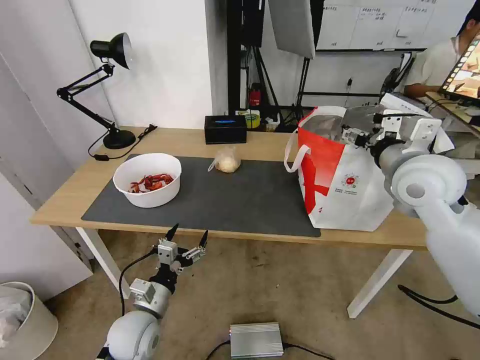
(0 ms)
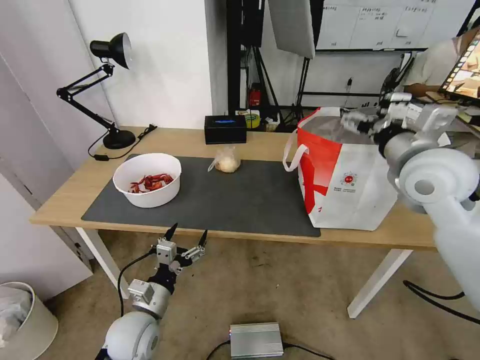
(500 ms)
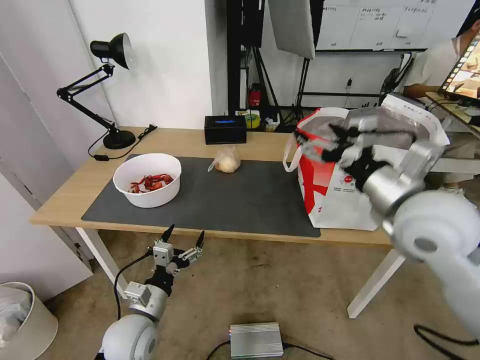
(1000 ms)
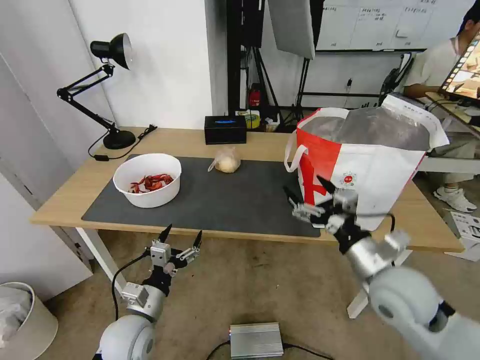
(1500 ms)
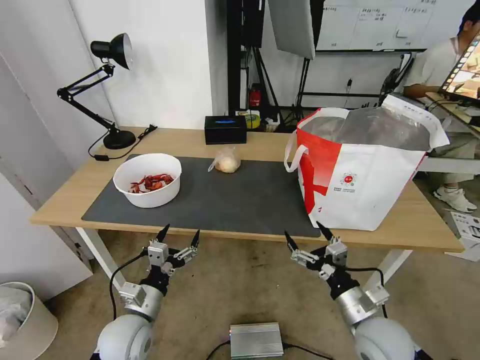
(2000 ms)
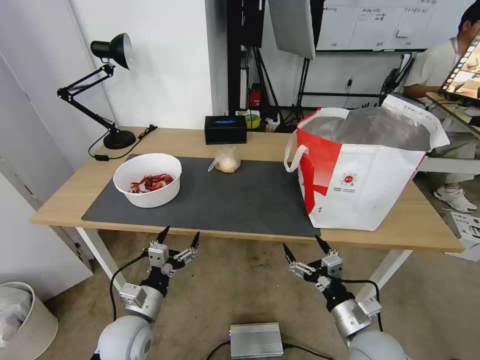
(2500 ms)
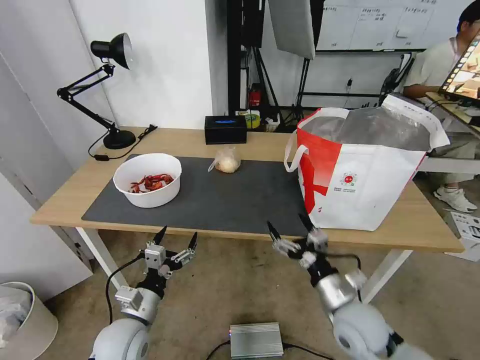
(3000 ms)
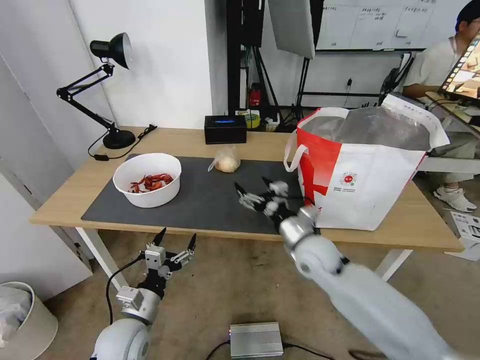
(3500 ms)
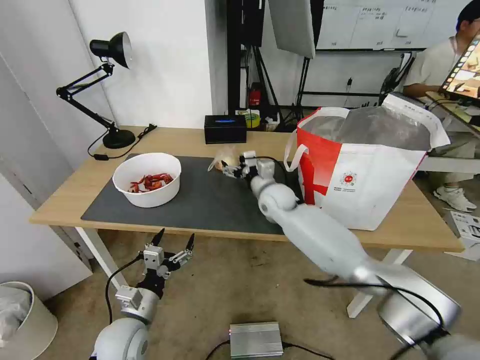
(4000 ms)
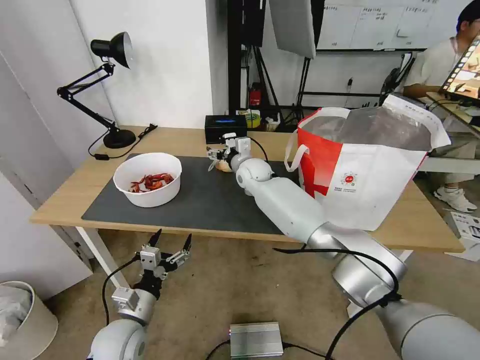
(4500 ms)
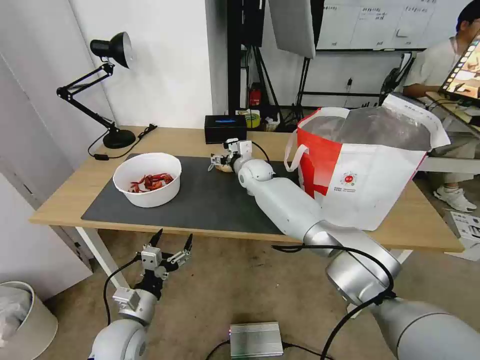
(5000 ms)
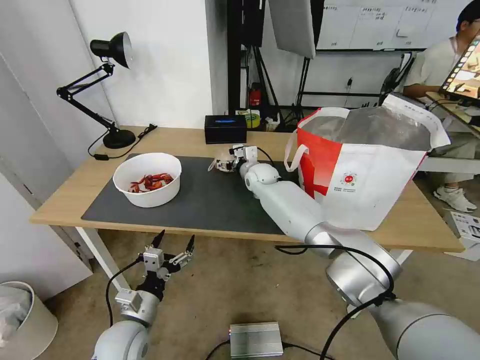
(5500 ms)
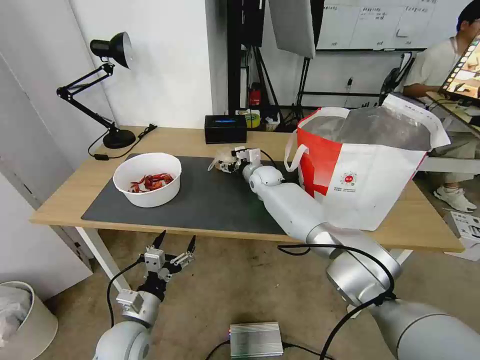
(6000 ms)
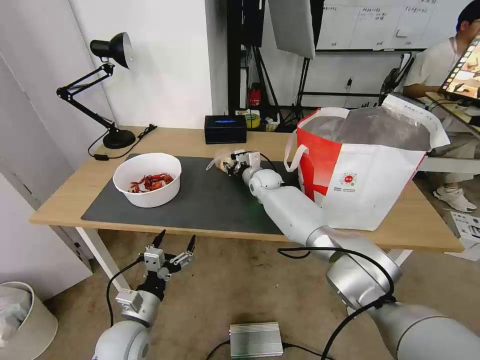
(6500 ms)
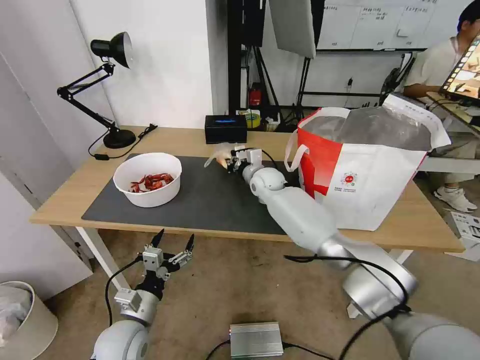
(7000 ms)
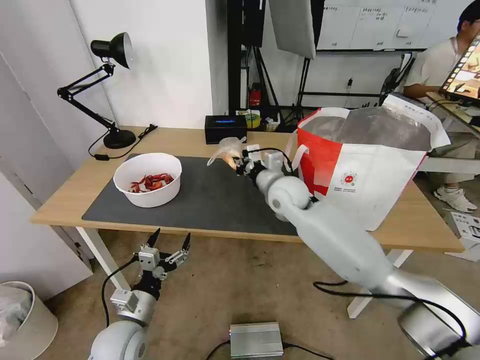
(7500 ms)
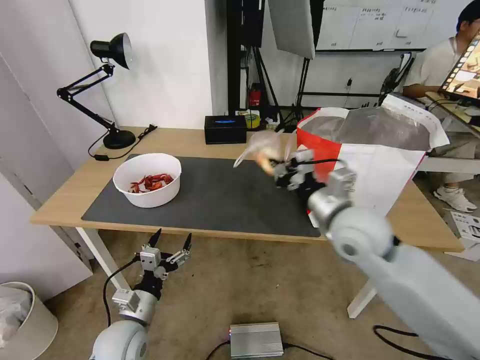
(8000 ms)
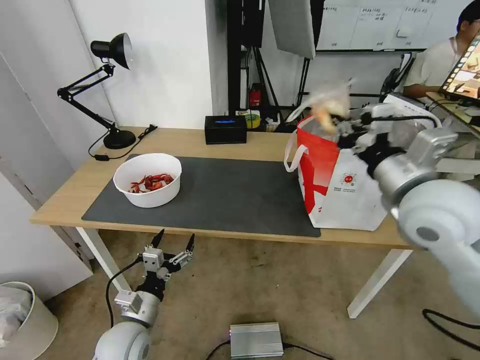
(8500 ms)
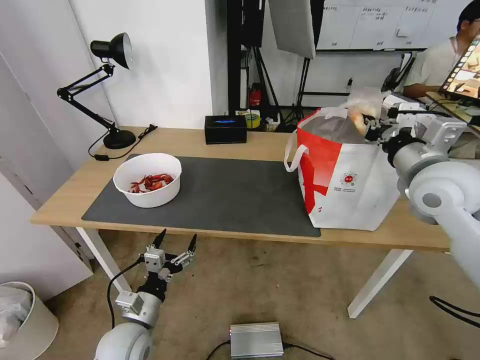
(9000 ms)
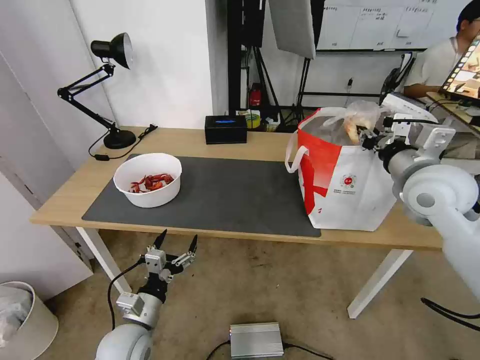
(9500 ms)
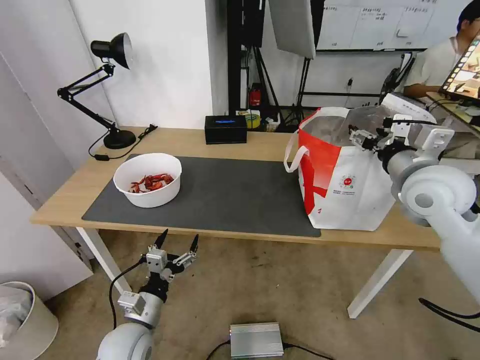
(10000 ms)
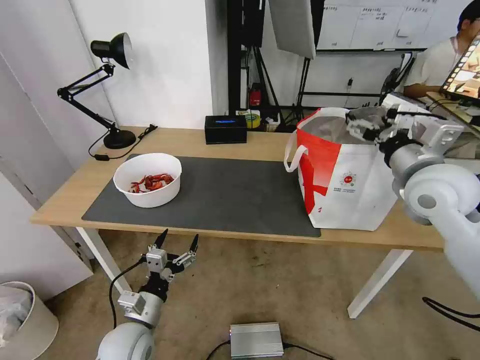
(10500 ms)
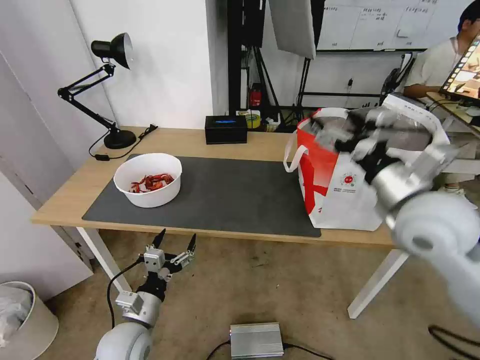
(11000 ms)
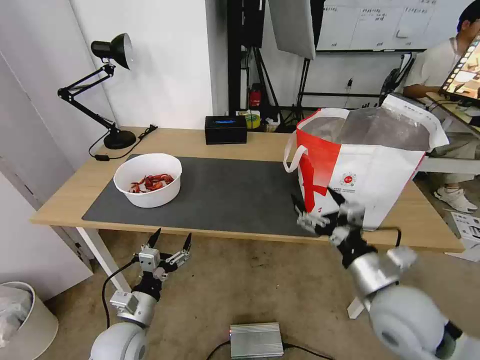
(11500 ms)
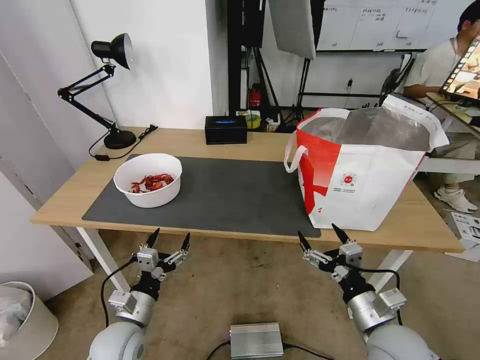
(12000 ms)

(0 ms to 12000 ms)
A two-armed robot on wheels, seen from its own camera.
Task of the whole recording: Pick up the trash from the table and place it into the takeout bag.
0 ms - 2000 ms: The right gripper moves downward and backward, approximately 30 cm.
2000 ms - 4000 ms: The right gripper travels forward and to the left by roughly 35 cm.
4000 ms - 6000 ms: The right gripper heads forward, covering roughly 10 cm.
6000 ms - 8000 ms: The right gripper travels backward, upward and to the right by roughly 35 cm, and closes up.
8000 ms - 10000 ms: The right gripper goes about 15 cm to the right and upward, and opens up.
10000 ms - 12000 ms: The right gripper goes some 30 cm downward and backward.

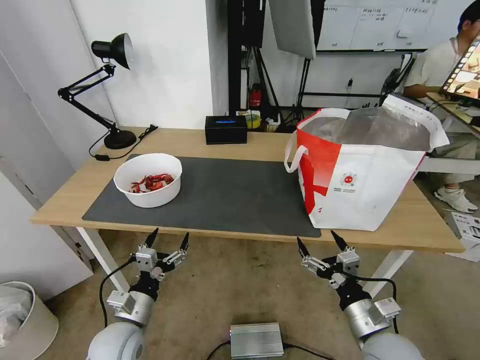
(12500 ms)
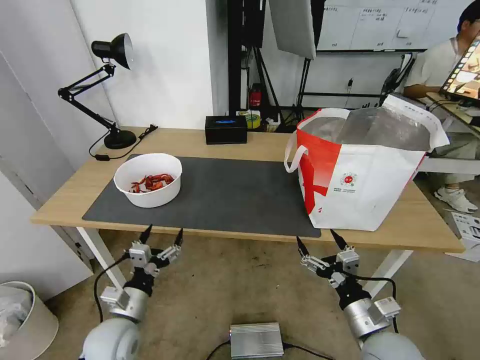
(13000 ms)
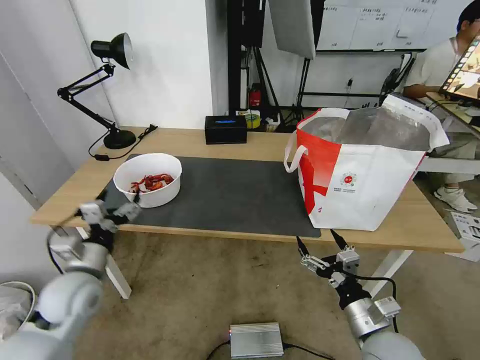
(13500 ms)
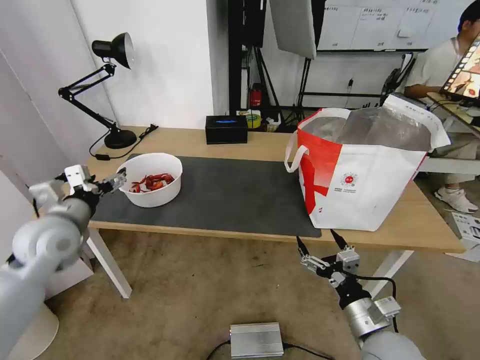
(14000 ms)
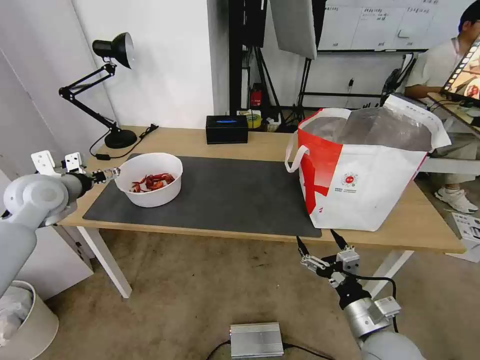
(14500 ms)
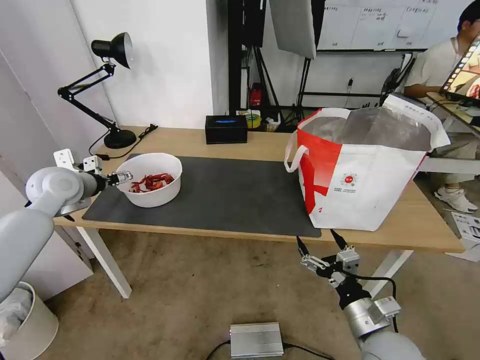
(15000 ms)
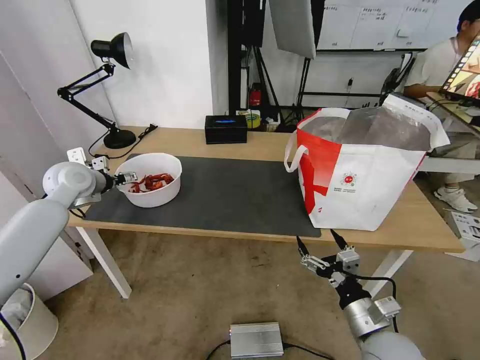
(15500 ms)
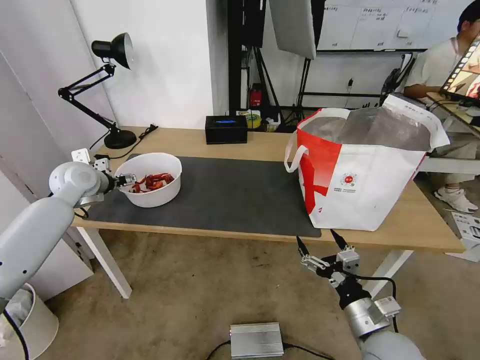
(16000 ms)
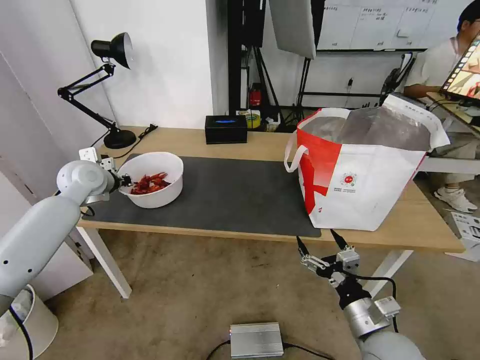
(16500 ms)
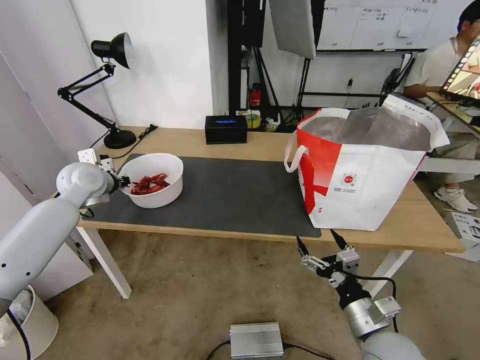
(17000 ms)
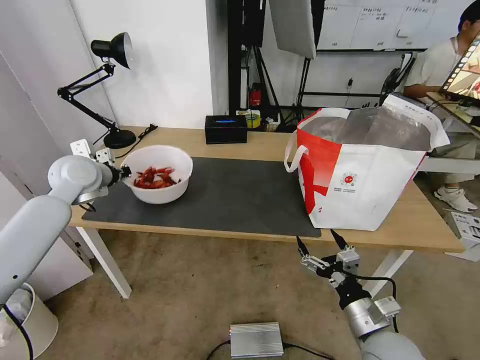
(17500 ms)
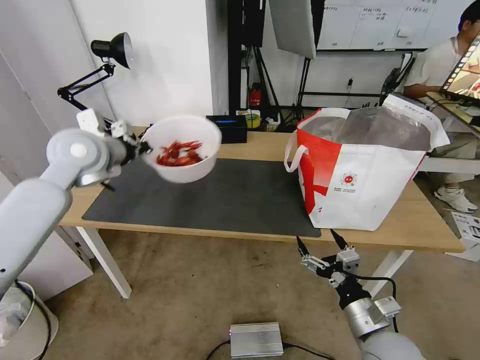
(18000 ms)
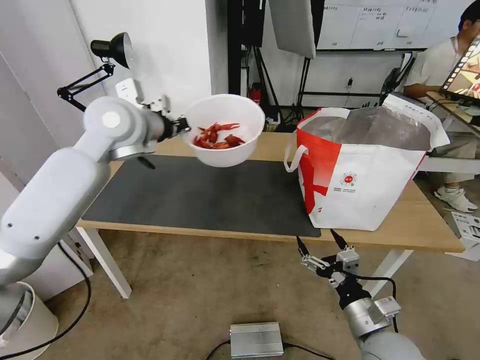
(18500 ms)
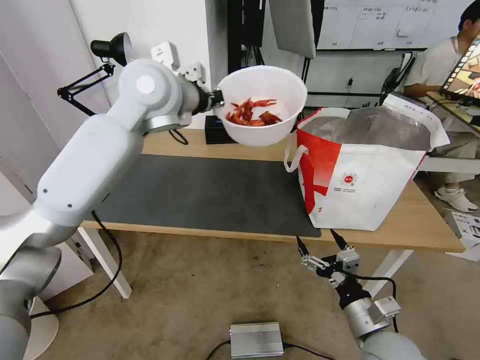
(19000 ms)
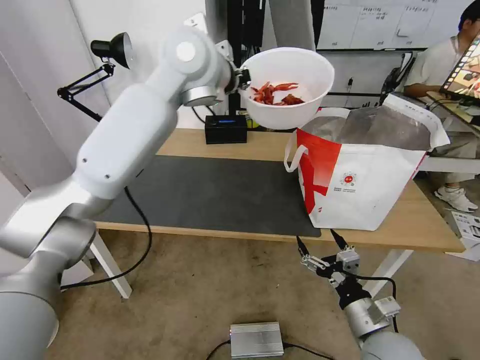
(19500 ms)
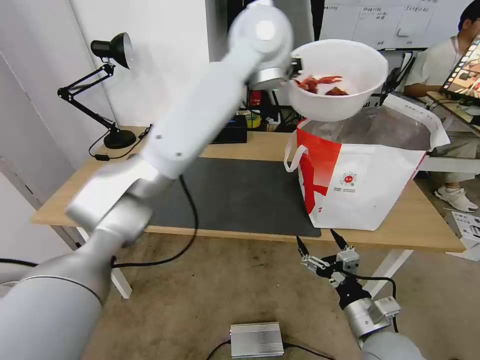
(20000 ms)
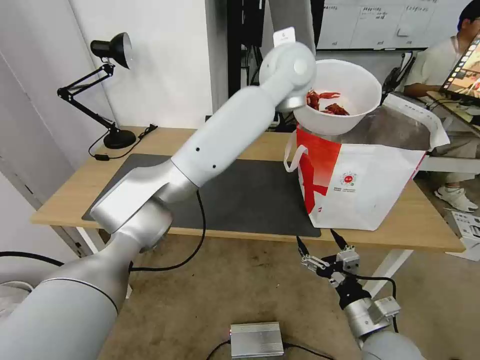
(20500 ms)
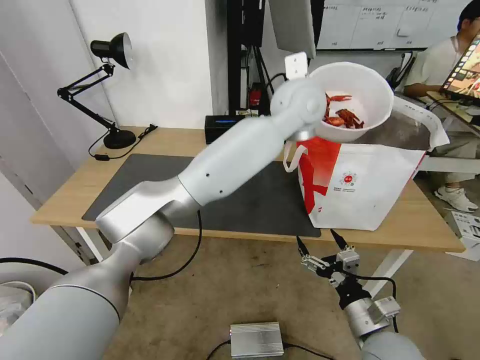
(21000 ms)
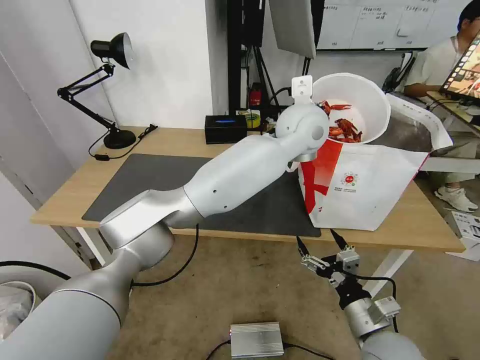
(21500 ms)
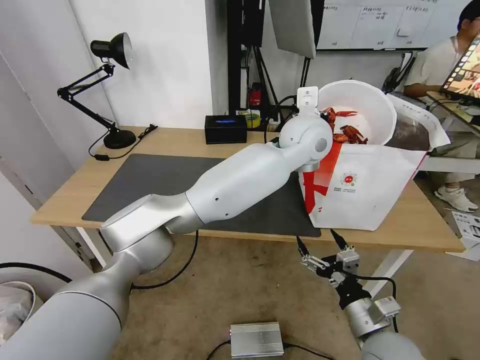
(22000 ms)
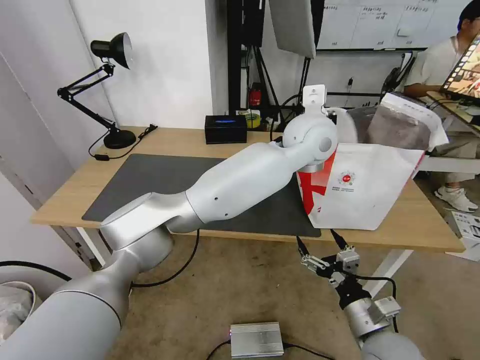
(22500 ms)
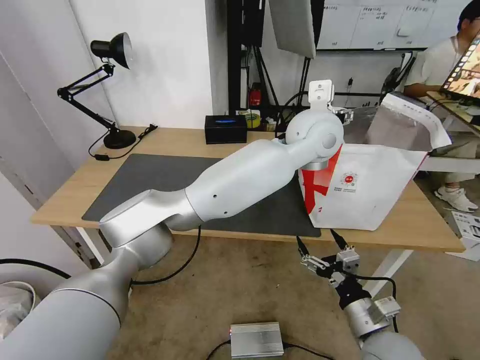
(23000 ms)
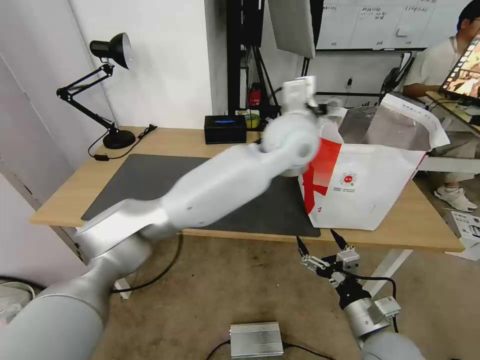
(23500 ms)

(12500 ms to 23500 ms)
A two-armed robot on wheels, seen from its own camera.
Task of the whole recording: Pick up the trash from the table and place it into the takeout bag.
12500 ms - 14500 ms: The left gripper goes some 35 cm upward, forward and to the left.
14500 ms - 16000 ms: The left gripper heads forward, covering roughly 5 cm.
16000 ms - 18000 ms: The left gripper is displaced upward and to the right by approximately 15 cm, and closes up.
18000 ms - 20000 ms: The left gripper travels to the right and upward by about 35 cm.
20000 ms - 21500 ms: The left gripper goes about 15 cm downward and to the right.
21500 ms - 23500 ms: The left gripper shifts by approximately 5 cm, and opens its fingers.

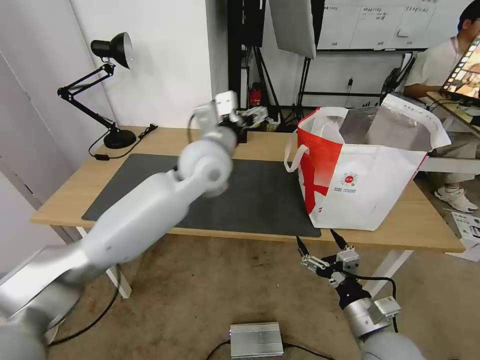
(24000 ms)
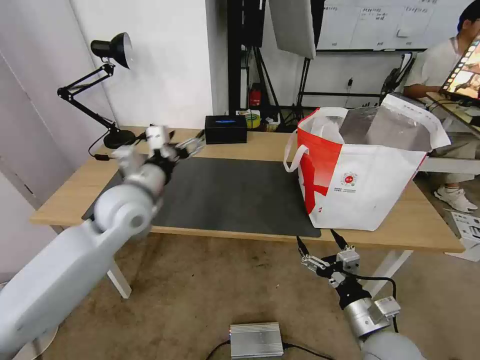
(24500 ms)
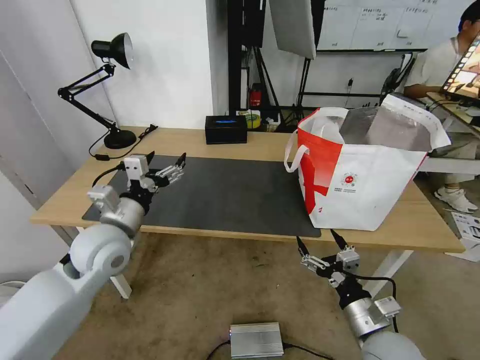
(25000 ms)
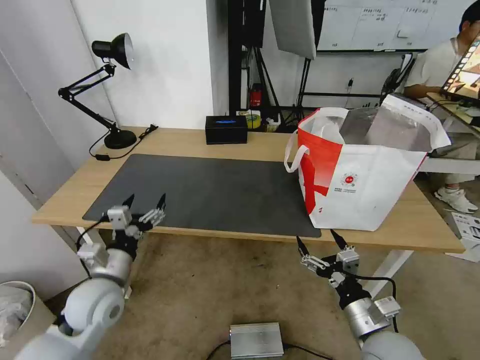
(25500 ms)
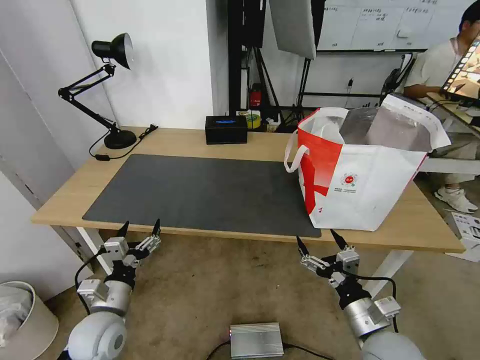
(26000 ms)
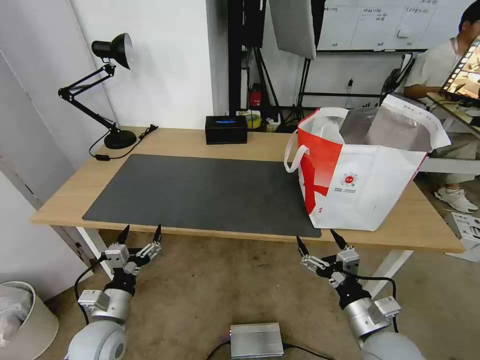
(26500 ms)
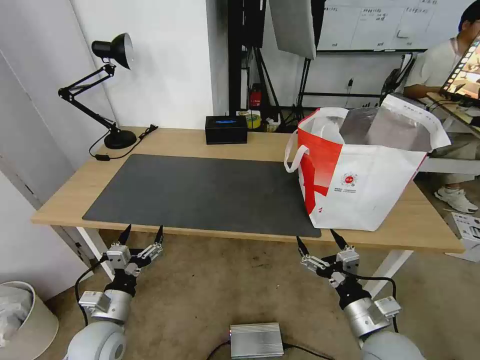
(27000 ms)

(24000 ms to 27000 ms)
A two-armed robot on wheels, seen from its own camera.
Task of the whole recording: Pick up the trash from the table and place it into the takeout bag.
24000 ms - 25500 ms: The left gripper moves to the left, downward and backward, about 35 cm.
25500 ms - 27000 ms: The left gripper goes approximately 10 cm downward and backward.
